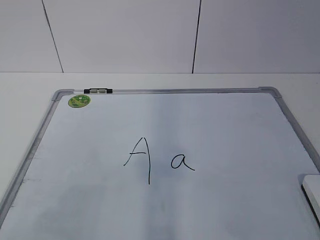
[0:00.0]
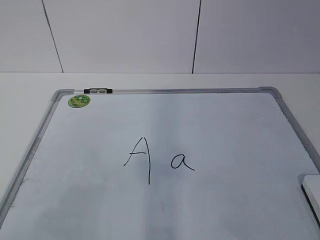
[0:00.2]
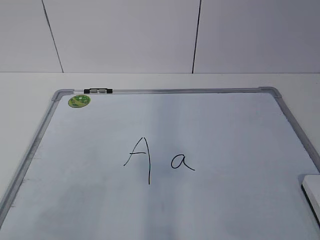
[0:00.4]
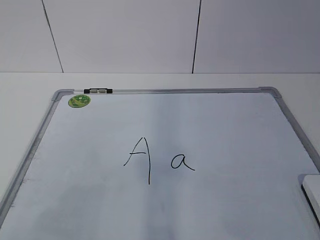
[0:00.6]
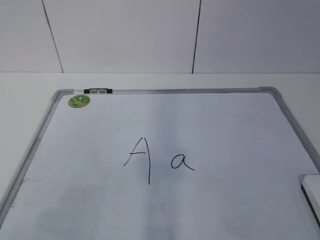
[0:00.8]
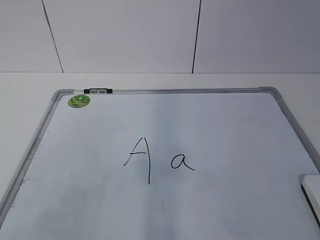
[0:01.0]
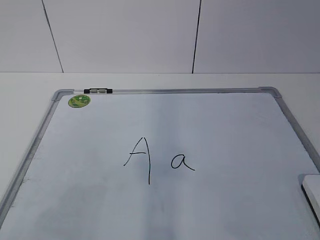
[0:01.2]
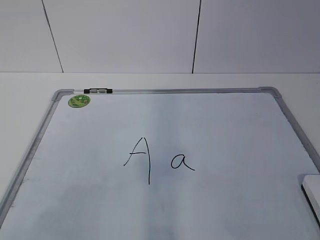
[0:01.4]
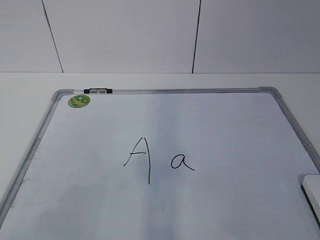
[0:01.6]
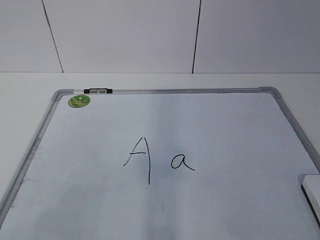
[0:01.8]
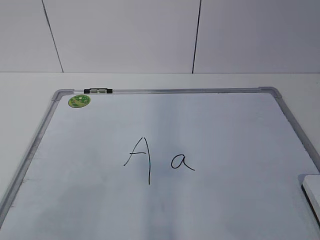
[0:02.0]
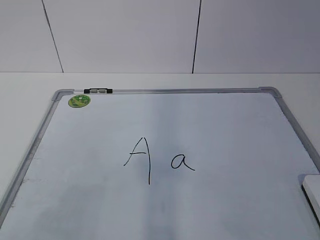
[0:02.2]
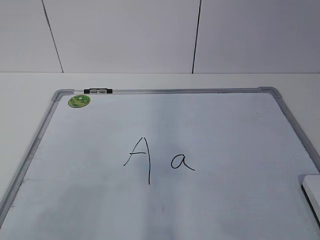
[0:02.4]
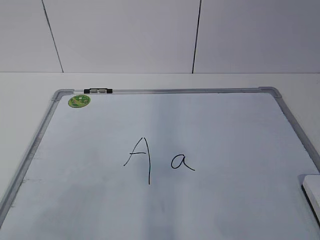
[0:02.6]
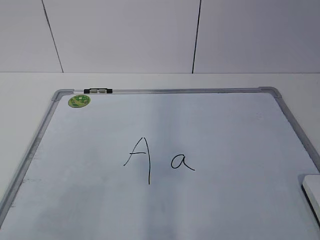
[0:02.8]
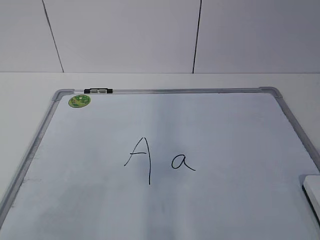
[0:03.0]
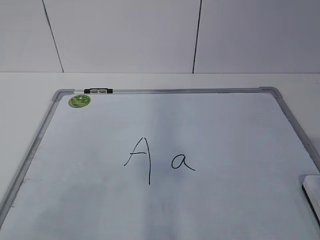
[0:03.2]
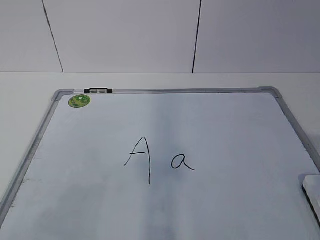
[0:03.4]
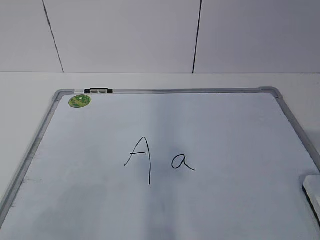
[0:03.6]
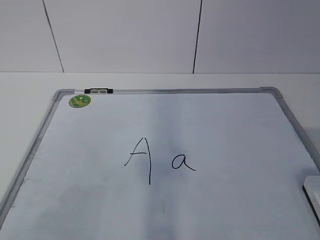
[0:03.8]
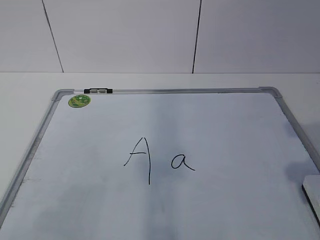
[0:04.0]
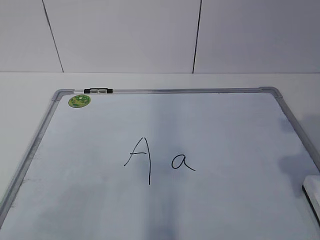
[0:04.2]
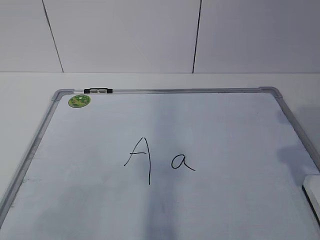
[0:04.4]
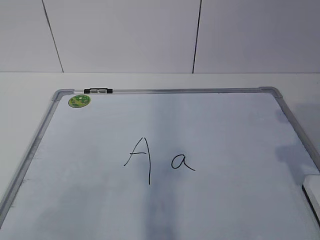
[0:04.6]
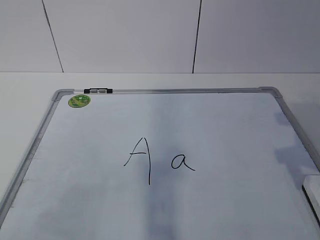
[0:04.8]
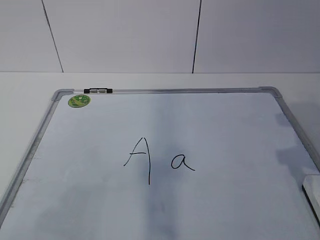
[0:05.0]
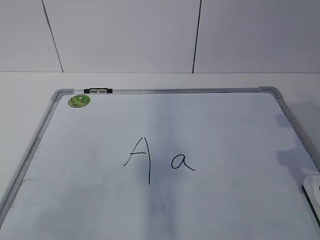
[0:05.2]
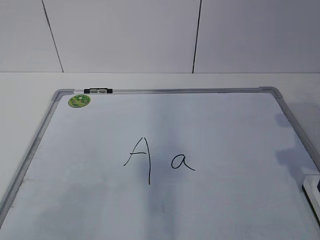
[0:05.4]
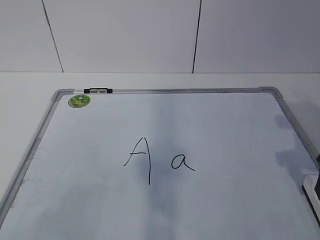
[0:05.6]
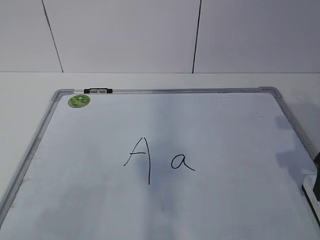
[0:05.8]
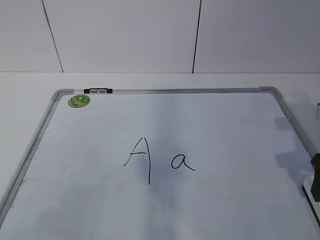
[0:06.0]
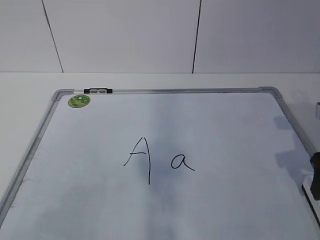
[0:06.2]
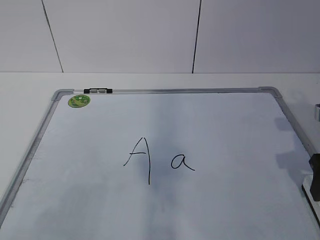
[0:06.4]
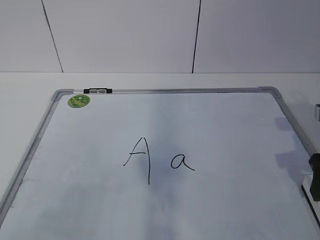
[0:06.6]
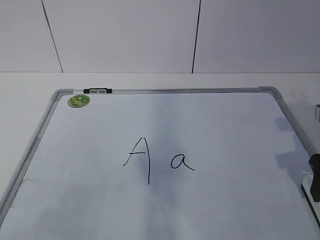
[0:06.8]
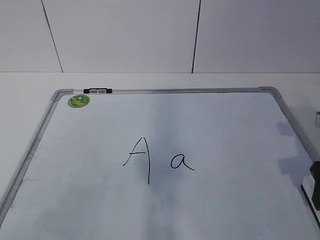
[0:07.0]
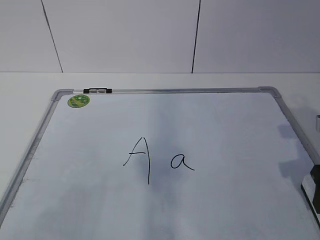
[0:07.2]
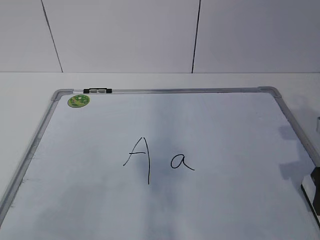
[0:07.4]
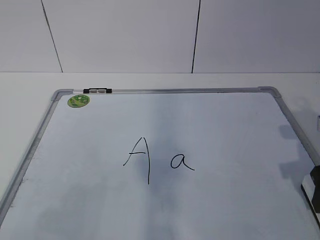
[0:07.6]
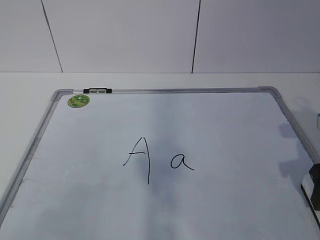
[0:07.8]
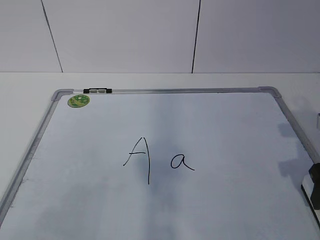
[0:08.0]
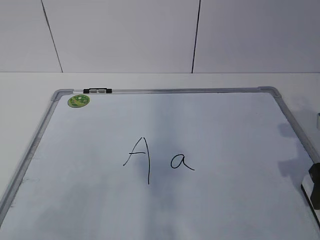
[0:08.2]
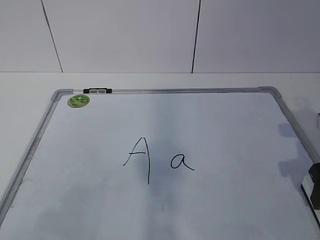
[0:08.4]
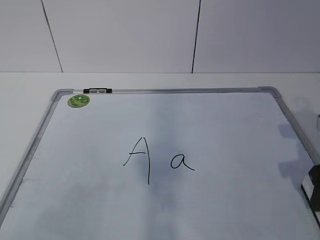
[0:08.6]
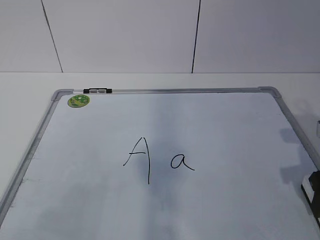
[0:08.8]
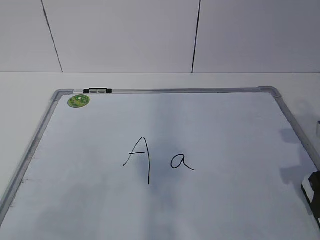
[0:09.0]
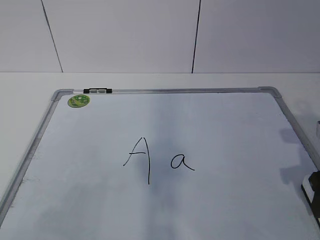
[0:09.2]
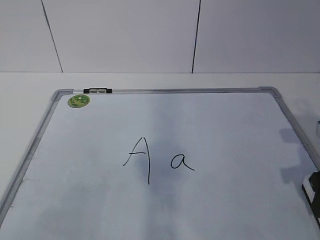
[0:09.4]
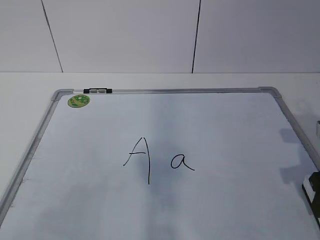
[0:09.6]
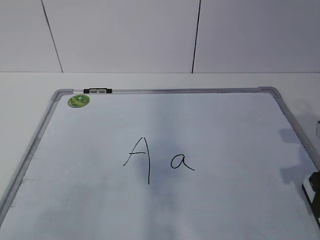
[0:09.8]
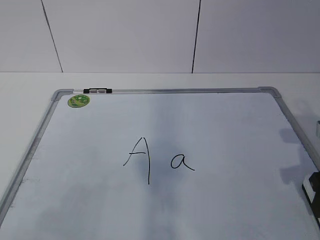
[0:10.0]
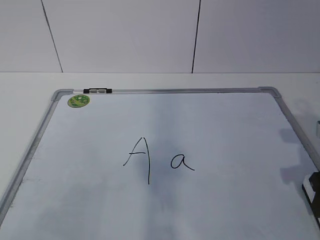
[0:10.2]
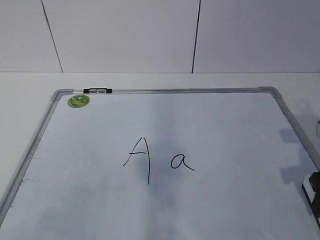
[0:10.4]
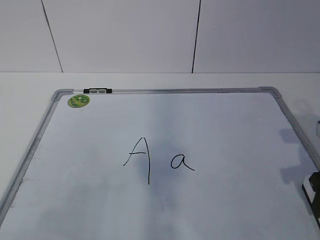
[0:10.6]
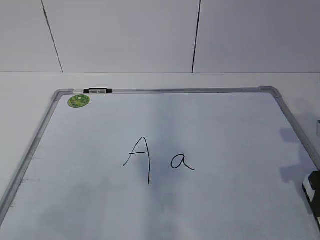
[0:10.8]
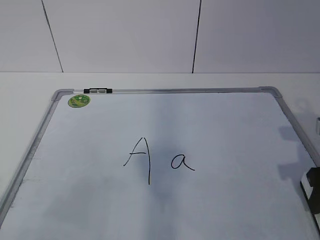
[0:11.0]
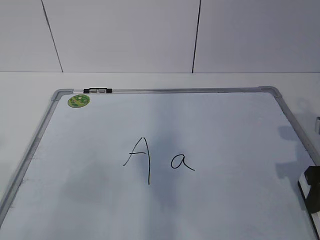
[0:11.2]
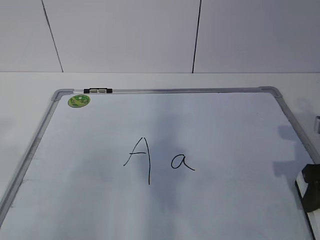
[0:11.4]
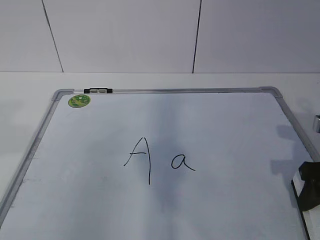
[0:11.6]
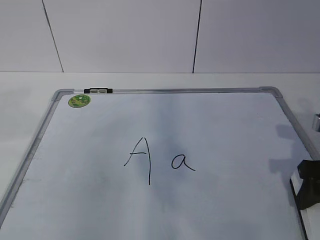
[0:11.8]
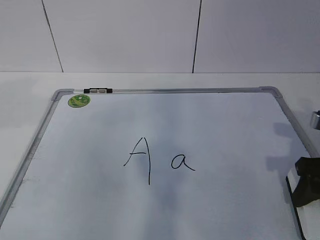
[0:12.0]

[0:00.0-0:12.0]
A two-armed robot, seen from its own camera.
Task of the whole recording: pick up the eraser on the blackboard and erase the letter "a".
0:03.0 to 0:04.4: The right gripper travels forward by roughly 15 cm.
0:06.0 to 0:07.6: There are only small adjustments of the grippers.
0:07.6 to 0:09.0: Both grippers stay put.

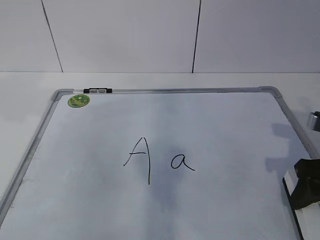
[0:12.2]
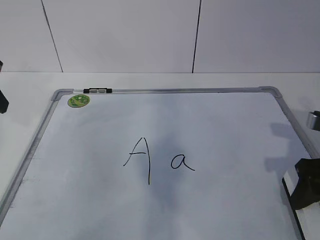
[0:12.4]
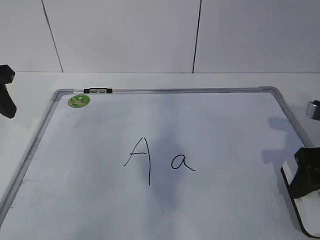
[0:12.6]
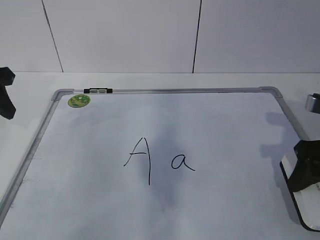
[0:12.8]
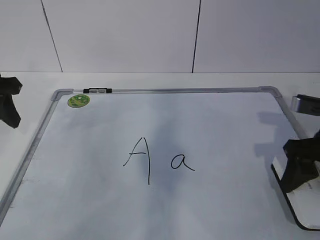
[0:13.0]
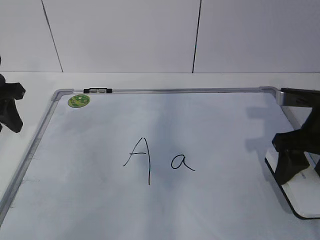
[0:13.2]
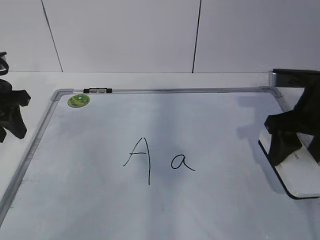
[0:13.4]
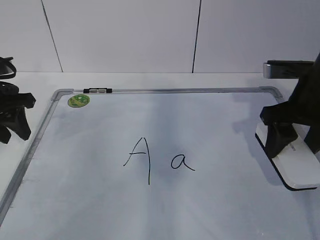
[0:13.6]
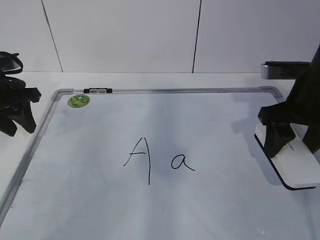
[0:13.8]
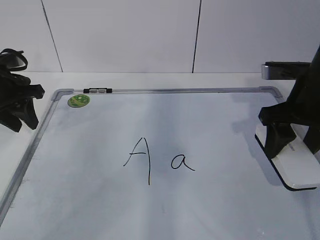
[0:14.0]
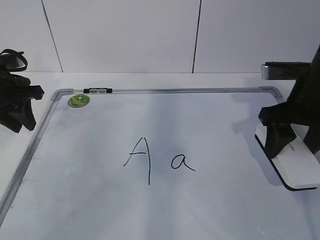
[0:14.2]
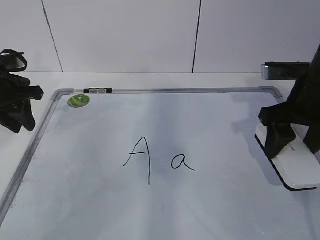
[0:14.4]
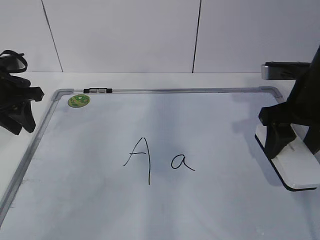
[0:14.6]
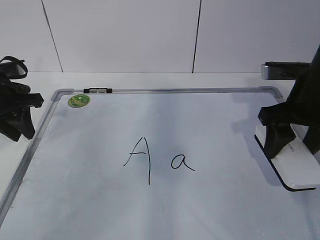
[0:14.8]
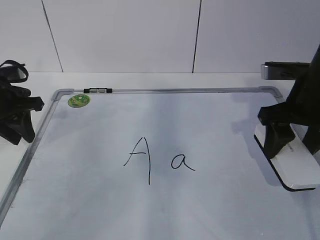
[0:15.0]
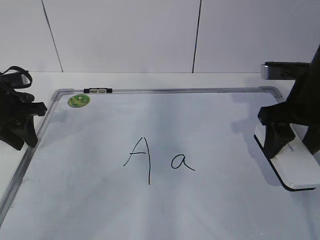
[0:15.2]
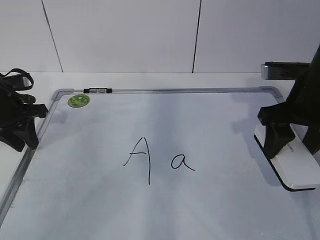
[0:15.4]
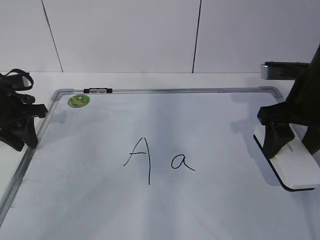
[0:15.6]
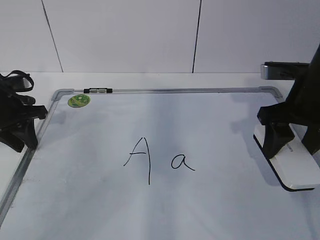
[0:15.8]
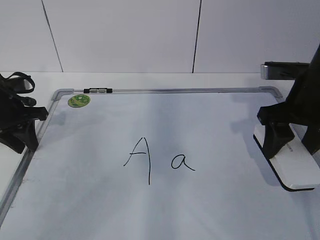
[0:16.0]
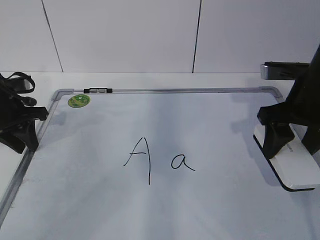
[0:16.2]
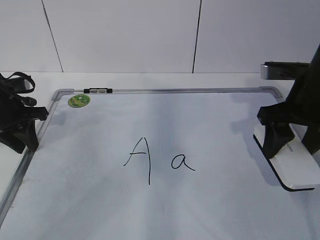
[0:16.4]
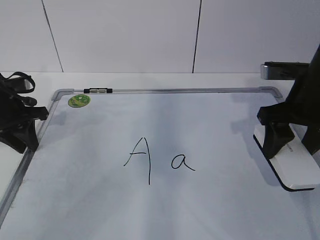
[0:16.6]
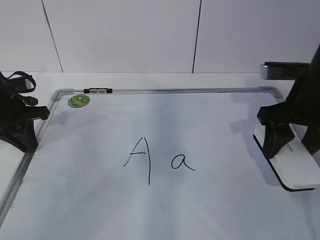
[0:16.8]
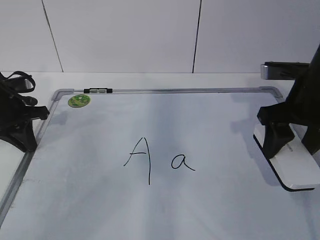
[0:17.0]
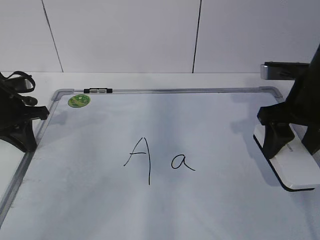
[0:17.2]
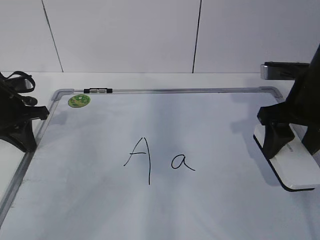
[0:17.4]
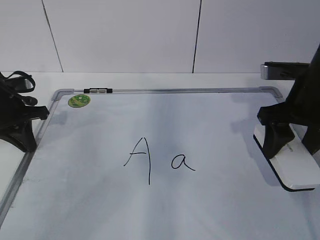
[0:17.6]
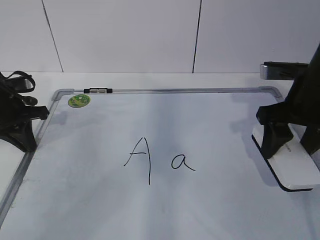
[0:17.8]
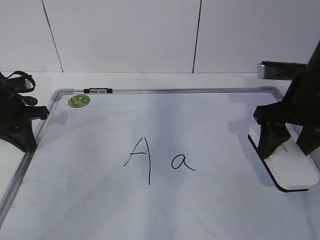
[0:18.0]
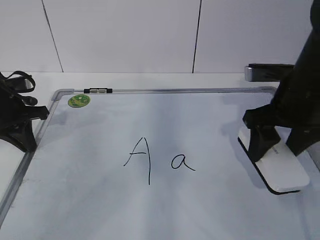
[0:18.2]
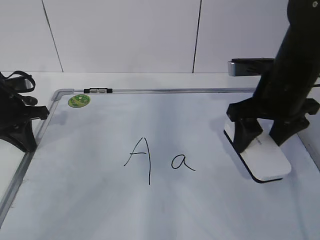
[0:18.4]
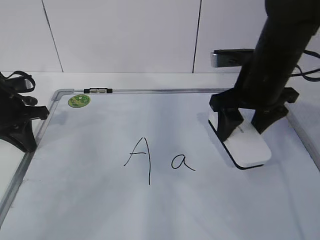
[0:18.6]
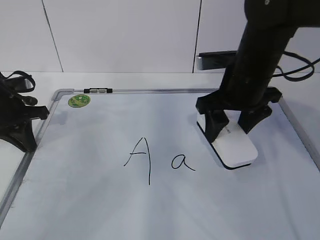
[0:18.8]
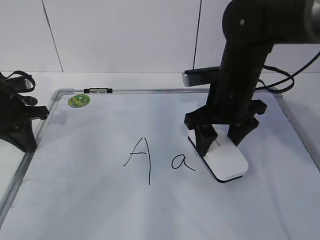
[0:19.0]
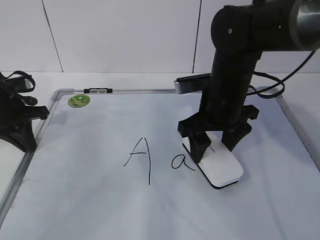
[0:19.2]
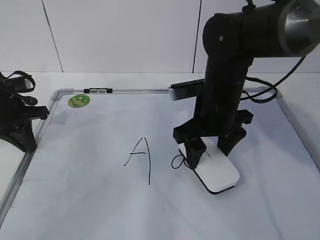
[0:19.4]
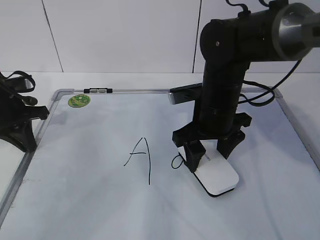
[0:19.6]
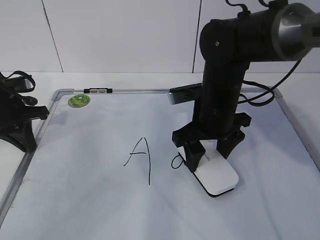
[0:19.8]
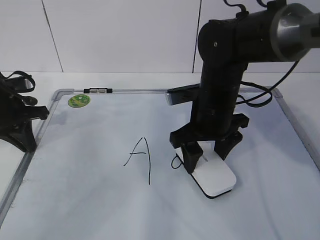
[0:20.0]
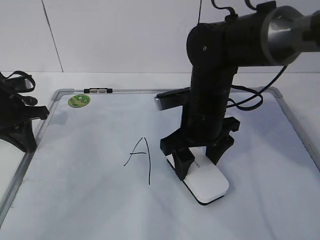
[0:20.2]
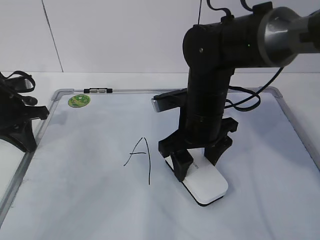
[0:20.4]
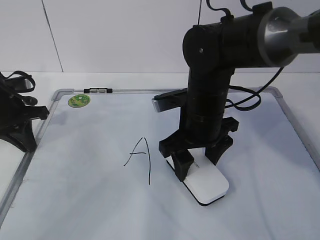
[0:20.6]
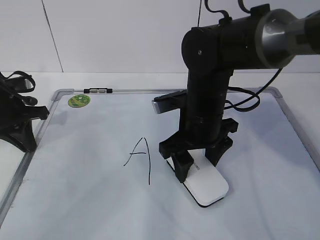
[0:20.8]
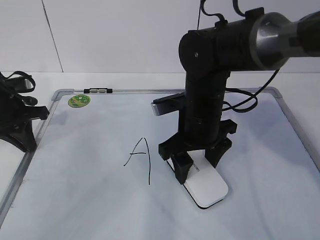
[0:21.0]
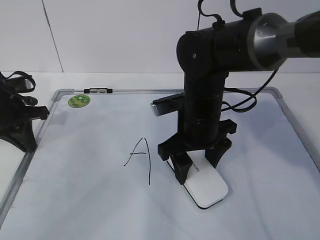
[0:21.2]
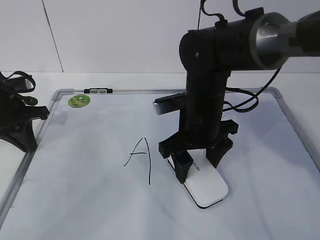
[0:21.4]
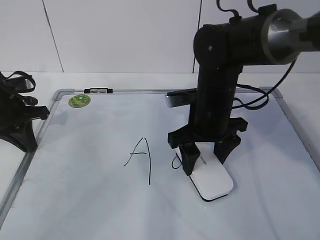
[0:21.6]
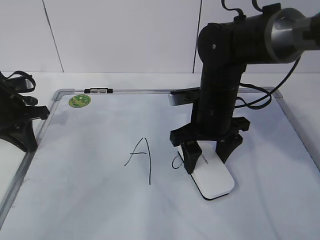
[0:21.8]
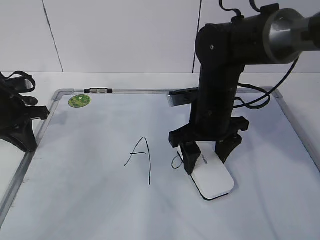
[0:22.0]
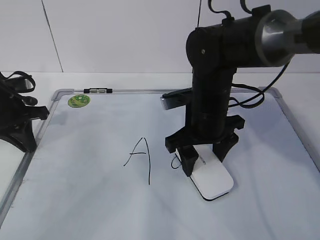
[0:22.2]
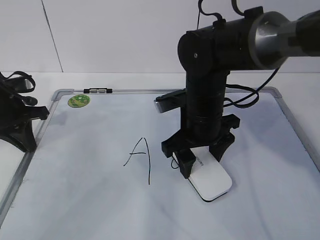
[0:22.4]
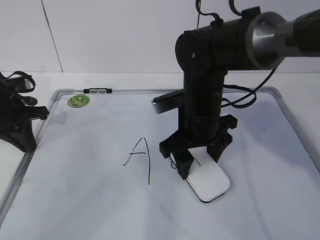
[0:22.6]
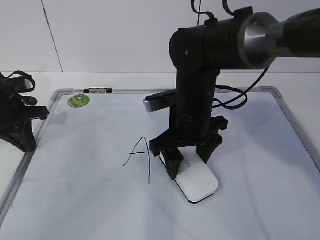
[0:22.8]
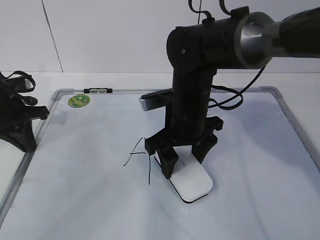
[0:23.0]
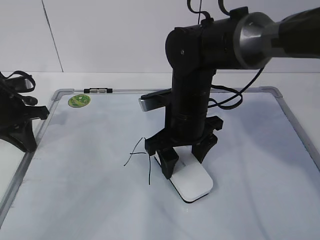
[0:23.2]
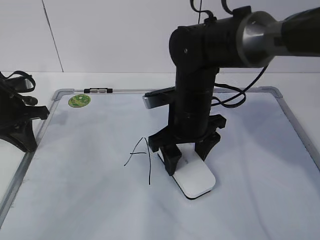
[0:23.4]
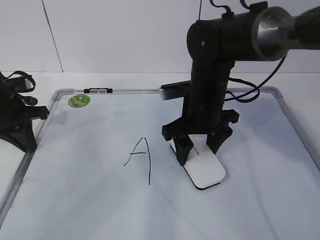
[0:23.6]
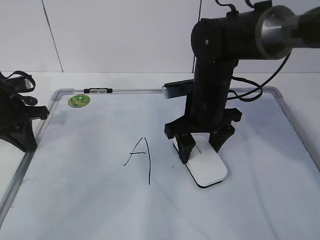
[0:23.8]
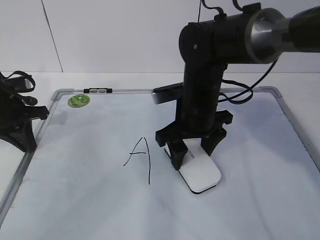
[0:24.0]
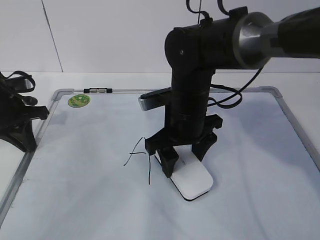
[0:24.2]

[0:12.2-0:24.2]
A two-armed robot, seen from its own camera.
Task of the whole recording: pick up the eraser on the blackboard and erase the letter "a".
Step, 0:14.2 to 0:20.4: Erase the letter a with your right hand.
0:12.2 to 0:13.8: The left gripper goes roughly 15 cm downward and forward. Meanwhile the right gripper heads forward and upward, covering roughly 10 cm.
0:13.8 to 0:15.2: There are only small adjustments of the grippers.
0:15.2 to 0:16.6: The two grippers keep their place.
0:16.6 to 0:18.2: The left gripper closes up.
0:18.2 to 0:19.8: The right gripper goes approximately 10 cm to the left and downward.
0:19.8 to 0:24.2: The grippers stay close to where they were, moving slightly.
